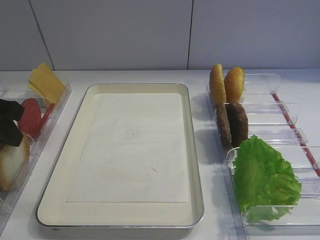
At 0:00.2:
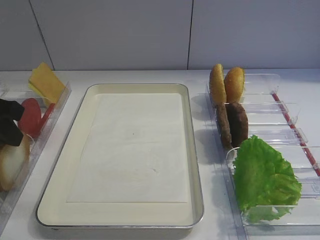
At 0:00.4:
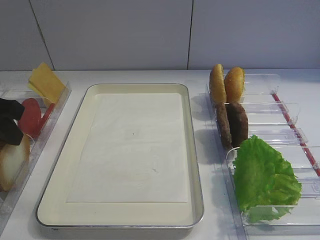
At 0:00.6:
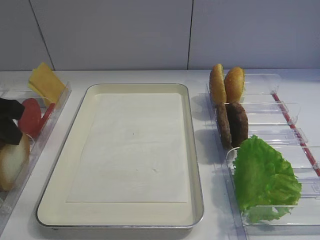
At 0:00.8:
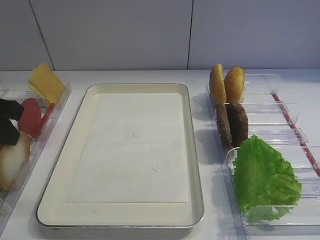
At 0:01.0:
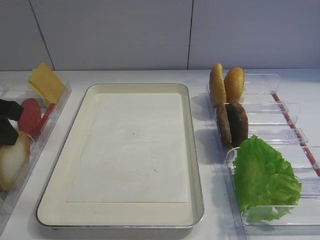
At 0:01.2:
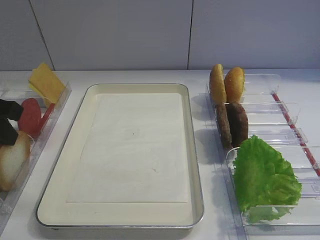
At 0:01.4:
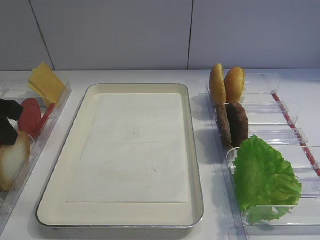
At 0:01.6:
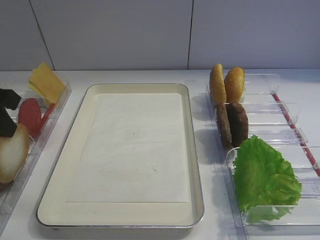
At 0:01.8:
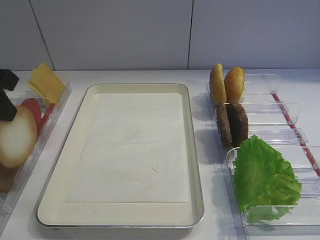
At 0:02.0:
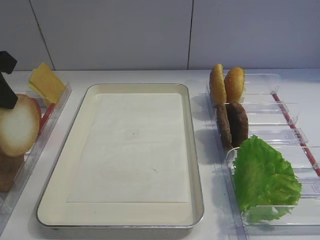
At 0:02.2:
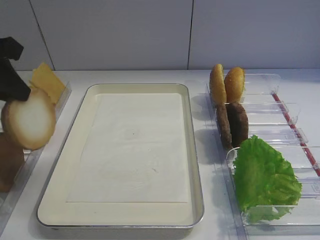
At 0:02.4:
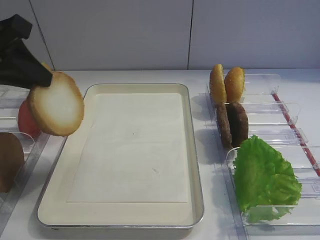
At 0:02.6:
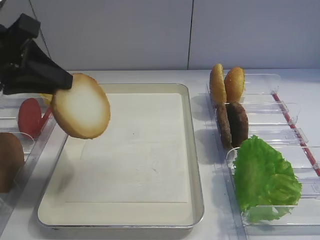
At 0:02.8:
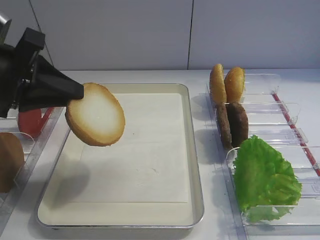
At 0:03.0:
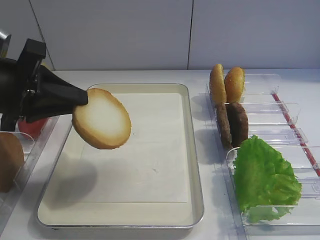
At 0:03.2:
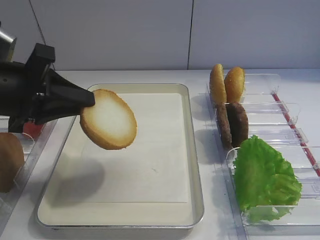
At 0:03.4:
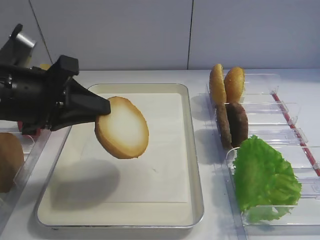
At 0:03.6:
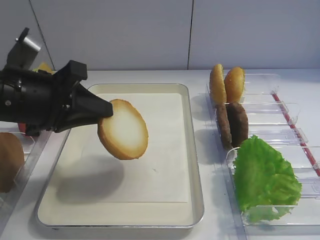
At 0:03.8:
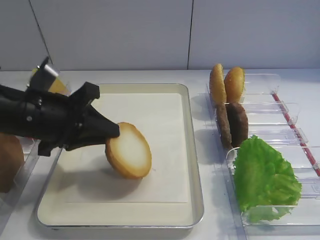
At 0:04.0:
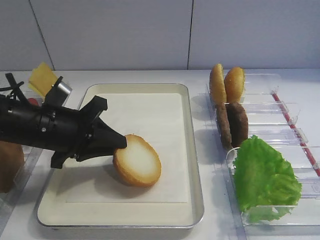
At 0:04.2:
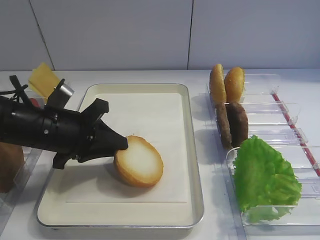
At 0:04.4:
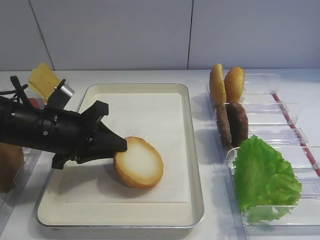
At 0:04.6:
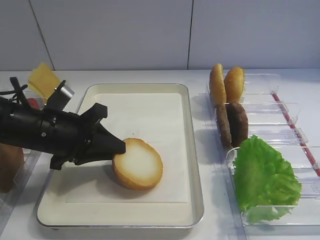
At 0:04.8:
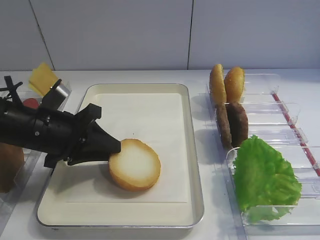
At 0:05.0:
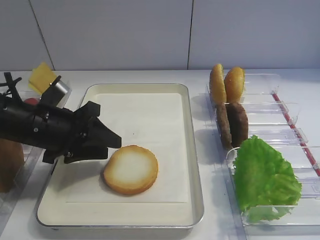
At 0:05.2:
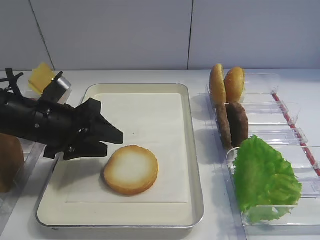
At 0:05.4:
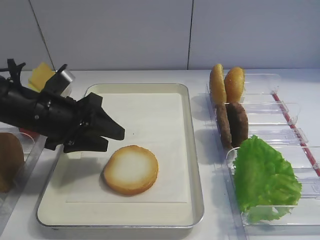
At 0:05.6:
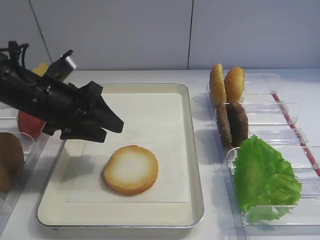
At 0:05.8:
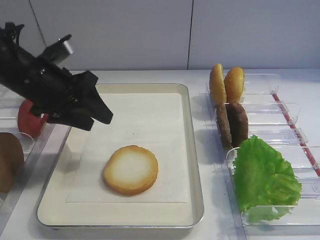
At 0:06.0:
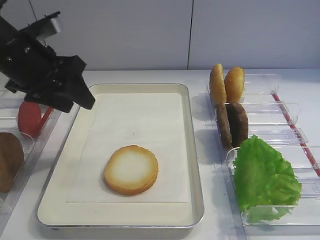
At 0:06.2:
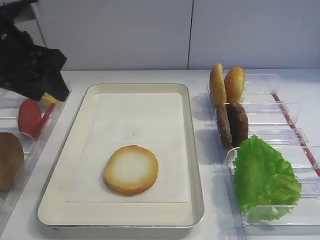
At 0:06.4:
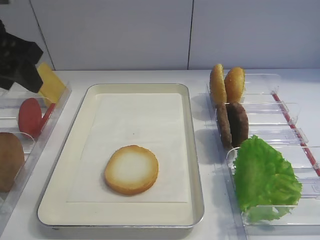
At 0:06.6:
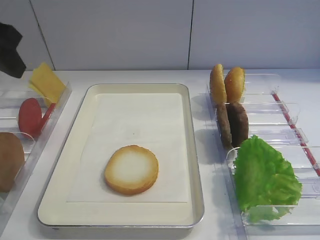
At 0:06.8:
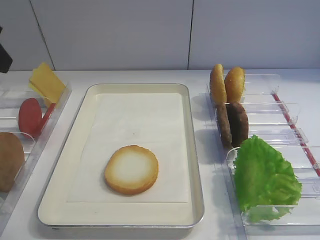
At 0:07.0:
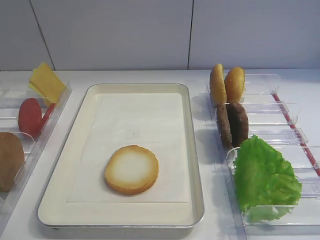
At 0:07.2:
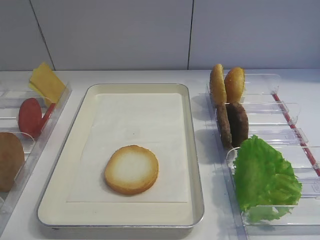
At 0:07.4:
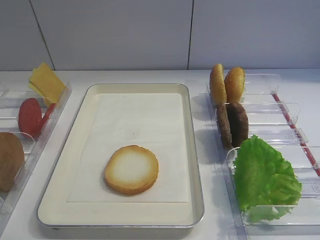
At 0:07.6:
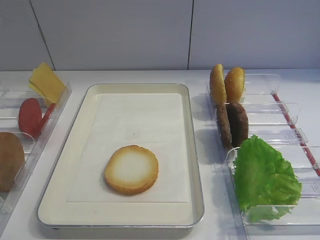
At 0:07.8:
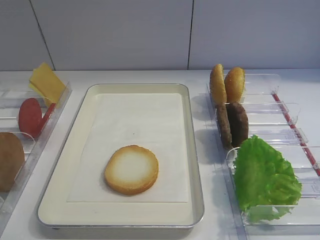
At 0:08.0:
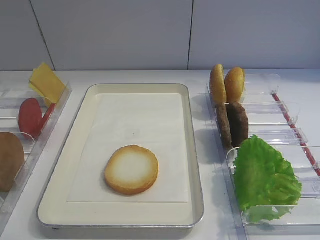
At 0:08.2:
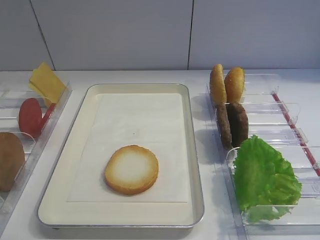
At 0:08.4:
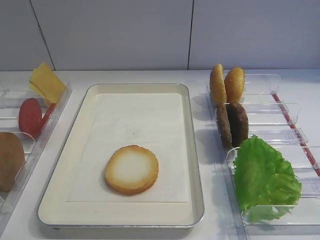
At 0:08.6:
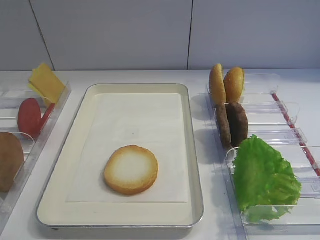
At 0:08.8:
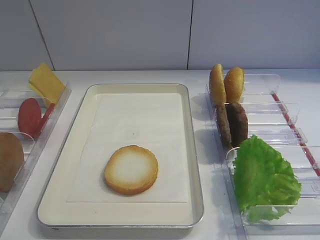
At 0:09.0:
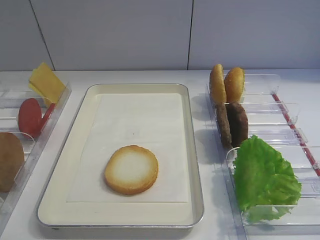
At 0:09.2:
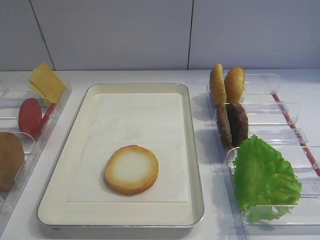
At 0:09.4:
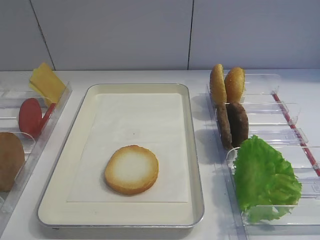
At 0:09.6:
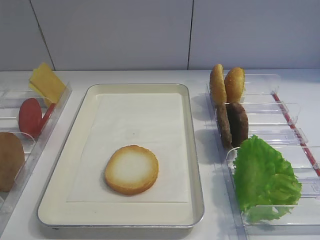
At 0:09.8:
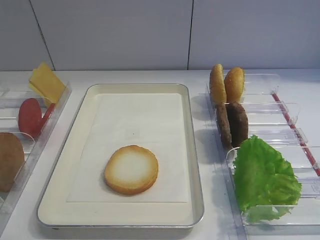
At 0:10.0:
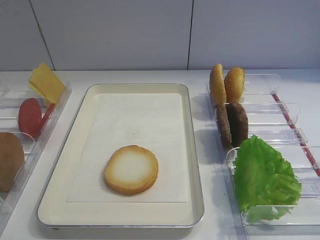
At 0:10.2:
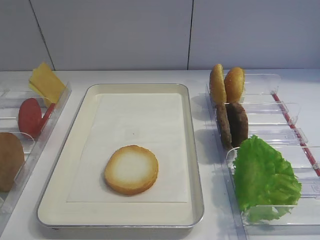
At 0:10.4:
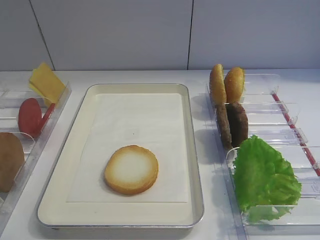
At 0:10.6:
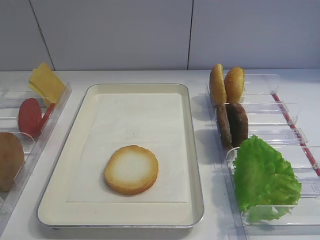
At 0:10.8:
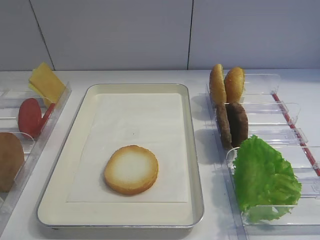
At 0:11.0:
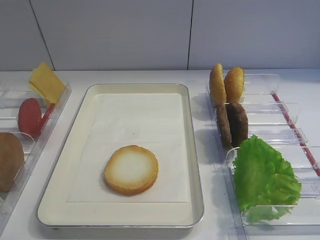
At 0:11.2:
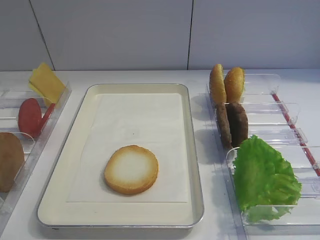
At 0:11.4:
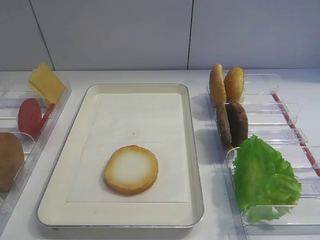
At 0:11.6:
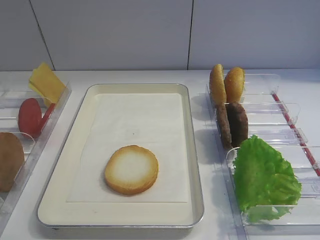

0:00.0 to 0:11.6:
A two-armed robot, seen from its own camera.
Step, 0:02.0 to 0:05.6: Place the bread slice on the tray with the left gripper.
0:00.0 to 0:01.4: Neither gripper changes place.
0:01.4 to 0:02.8: The left gripper is displaced to the right by about 5 cm.
0:02.8 to 0:04.4: The left gripper shifts approximately 10 cm downward and to the right.
0:04.4 to 0:05.8: The left gripper goes roughly 5 cm upward, and opens its fingers.
0:05.8 to 0:07.2: The left gripper travels backward, upward and to the left by approximately 20 cm.
0:10.2 to 0:11.6: Both grippers stay about where they are.

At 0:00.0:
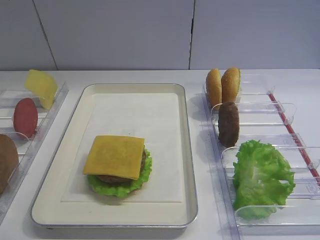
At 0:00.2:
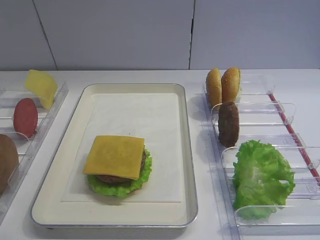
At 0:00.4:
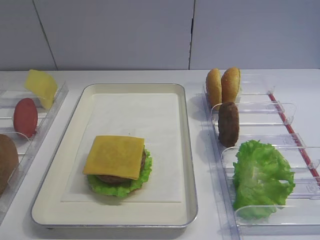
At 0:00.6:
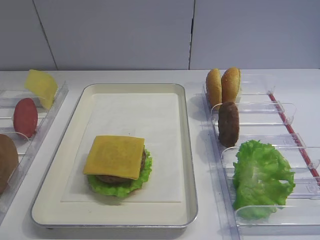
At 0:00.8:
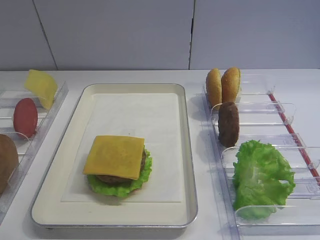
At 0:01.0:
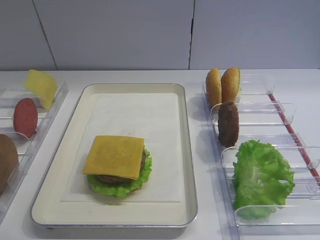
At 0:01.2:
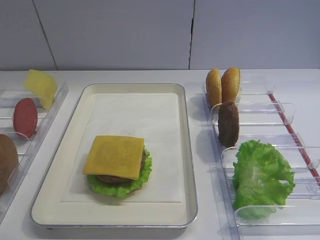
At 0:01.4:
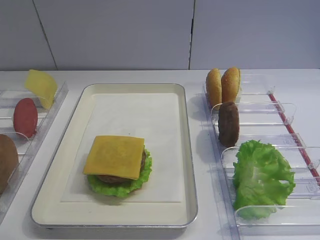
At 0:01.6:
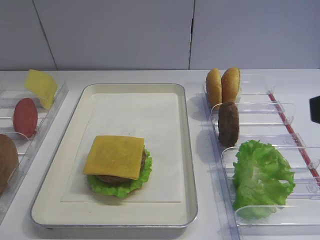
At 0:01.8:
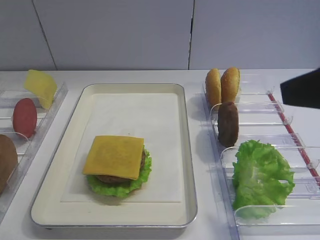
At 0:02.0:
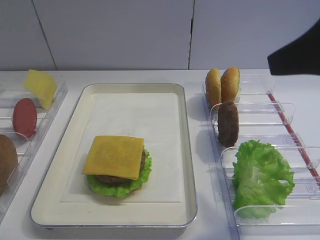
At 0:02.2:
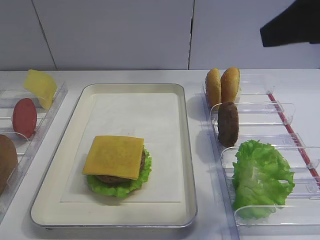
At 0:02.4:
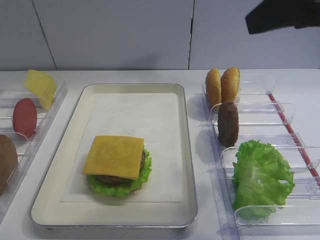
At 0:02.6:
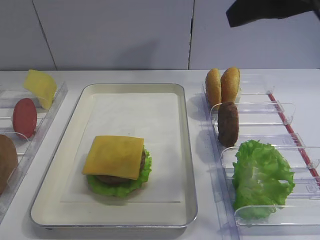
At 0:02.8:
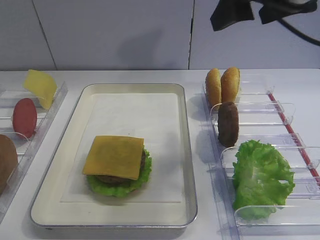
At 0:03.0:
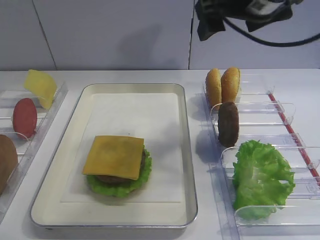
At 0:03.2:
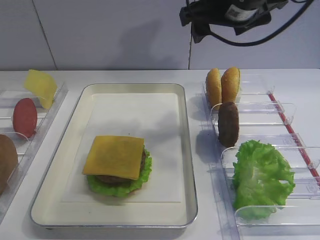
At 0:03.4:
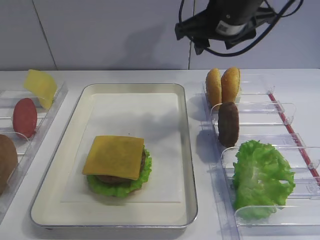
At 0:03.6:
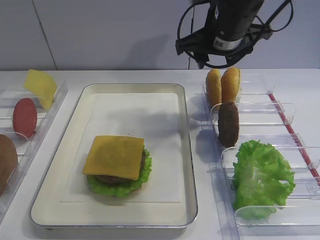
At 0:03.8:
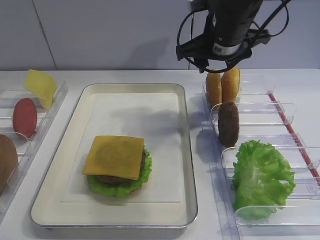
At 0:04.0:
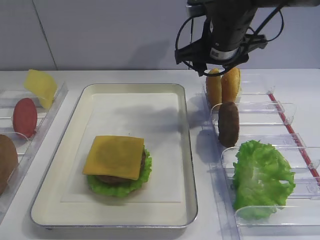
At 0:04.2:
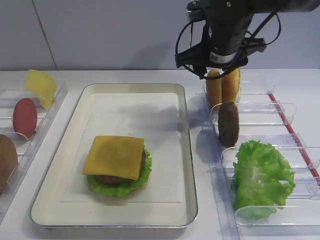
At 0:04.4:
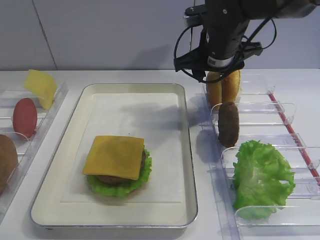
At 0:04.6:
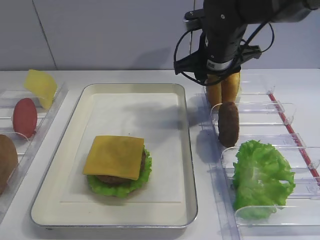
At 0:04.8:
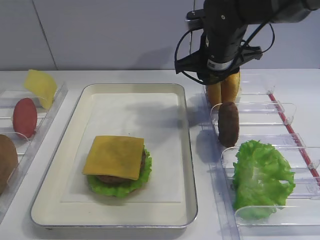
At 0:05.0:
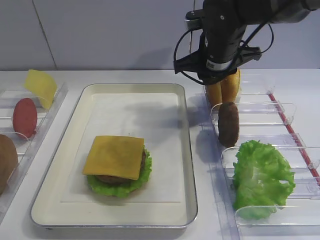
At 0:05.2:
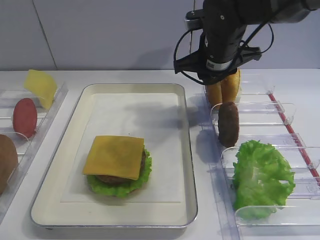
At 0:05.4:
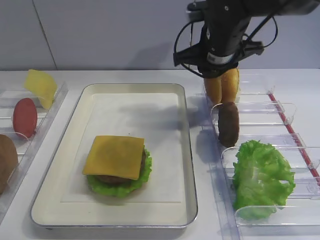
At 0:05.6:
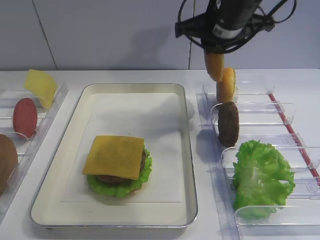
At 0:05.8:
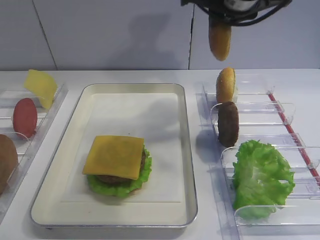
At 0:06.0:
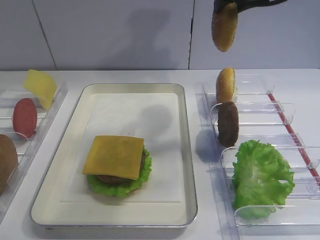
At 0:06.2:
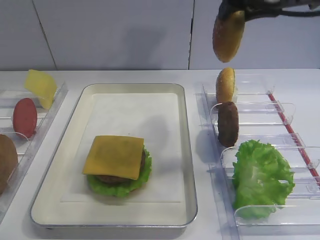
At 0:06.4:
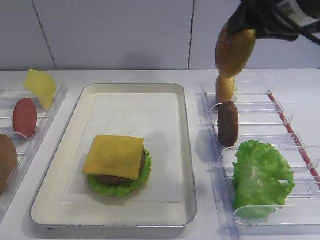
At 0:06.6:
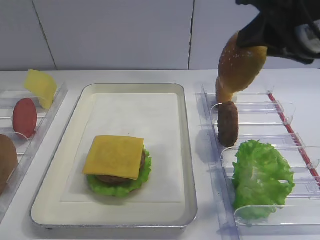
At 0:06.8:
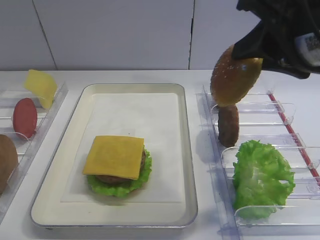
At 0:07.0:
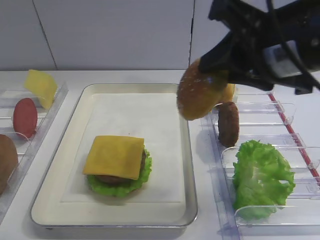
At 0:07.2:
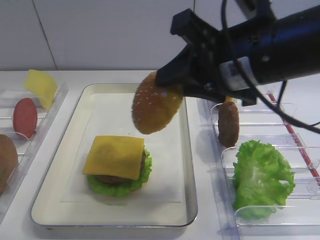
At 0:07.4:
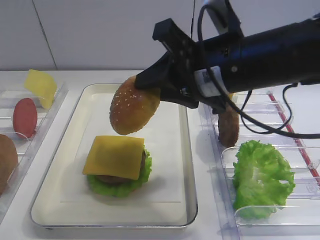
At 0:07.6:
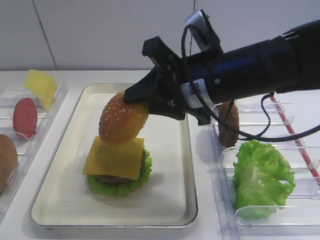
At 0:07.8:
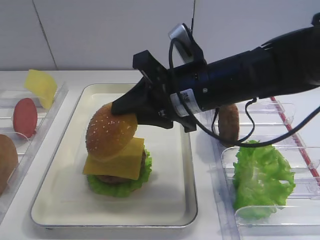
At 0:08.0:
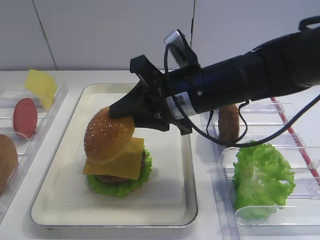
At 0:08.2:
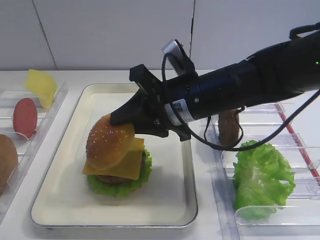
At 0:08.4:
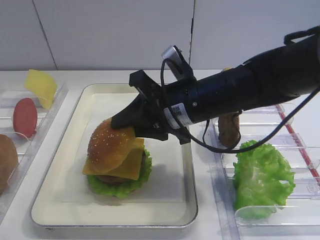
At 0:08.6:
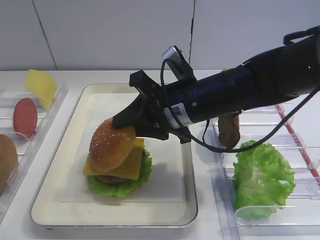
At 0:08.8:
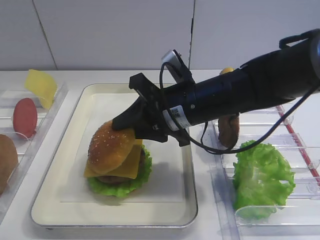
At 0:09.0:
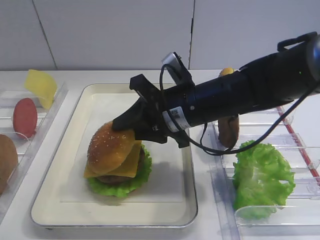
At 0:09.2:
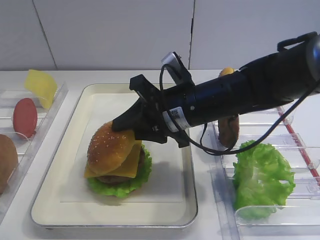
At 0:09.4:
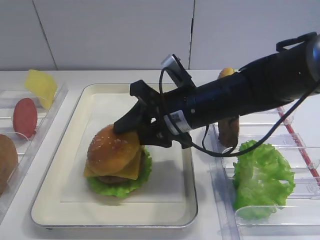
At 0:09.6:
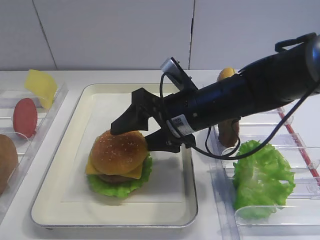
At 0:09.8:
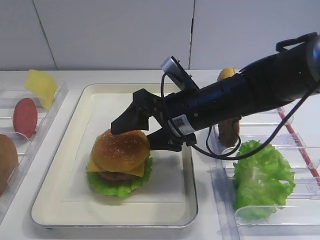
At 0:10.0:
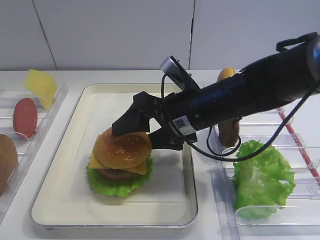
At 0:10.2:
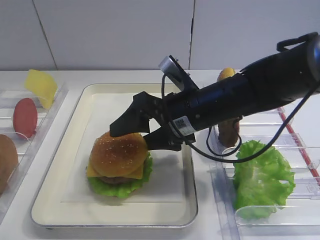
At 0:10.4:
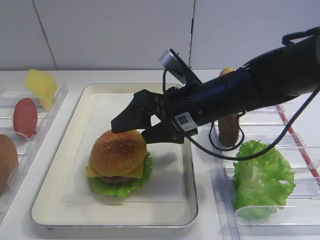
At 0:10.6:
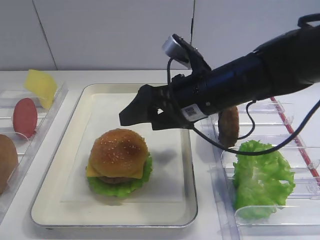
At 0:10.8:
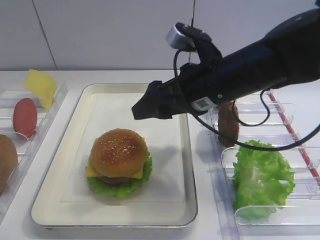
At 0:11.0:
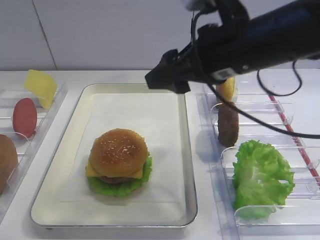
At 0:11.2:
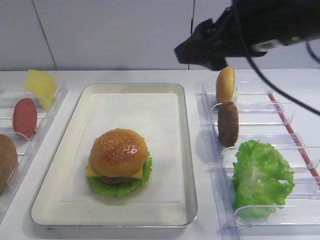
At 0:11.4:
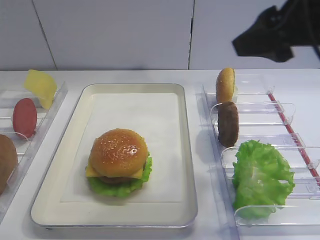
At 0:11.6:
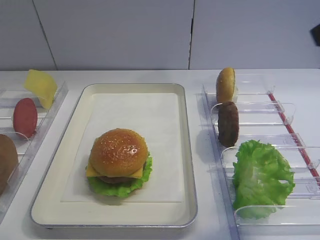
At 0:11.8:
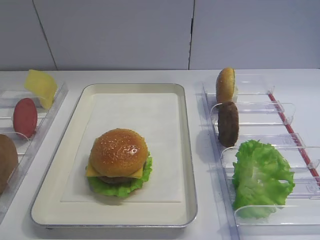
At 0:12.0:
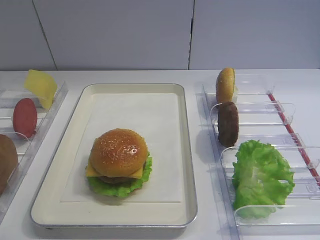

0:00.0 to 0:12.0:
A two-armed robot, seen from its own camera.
Step, 0:00.0 to 0:05.6: Pick up the hamburger lid with the right gripper.
Step, 0:05.8 to 0:10.4: Place the hamburger lid on the cheese slice with the right gripper.
0:01.6 to 0:03.0: The right gripper goes roughly 25 cm forward and to the left.
0:03.0 to 0:04.4: The right gripper goes some 15 cm downward and forward, and closes up.
0:04.4 to 0:06.0: The right gripper moves upward and backward, roughly 15 cm, and closes up.
0:06.0 to 0:07.6: The right gripper moves downward, backward and to the left, roughly 15 cm.
0:07.6 to 0:09.0: The right gripper shifts about 5 cm downward.
0:09.0 to 0:10.4: The right gripper opens up.
0:10.4 to 0:12.0: The right gripper heads upward, backward and to the right, covering approximately 35 cm.
